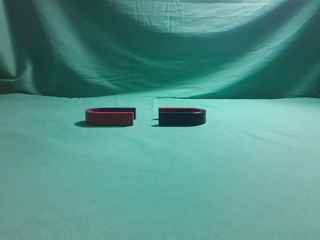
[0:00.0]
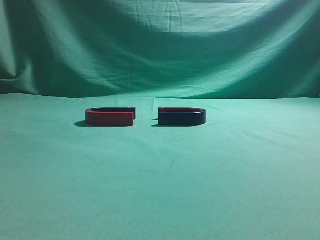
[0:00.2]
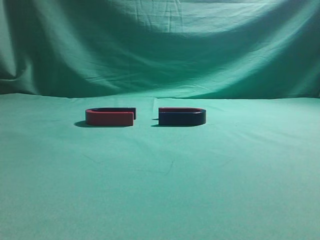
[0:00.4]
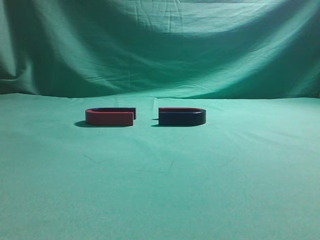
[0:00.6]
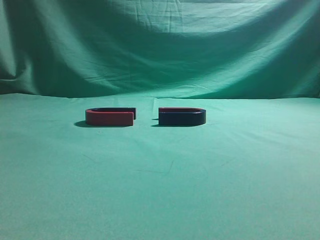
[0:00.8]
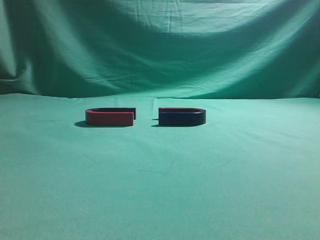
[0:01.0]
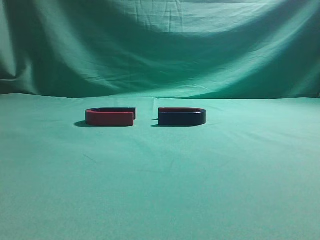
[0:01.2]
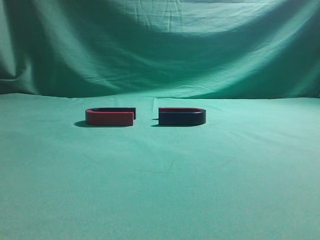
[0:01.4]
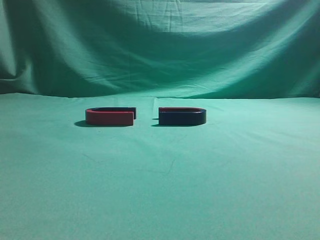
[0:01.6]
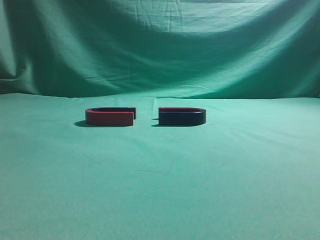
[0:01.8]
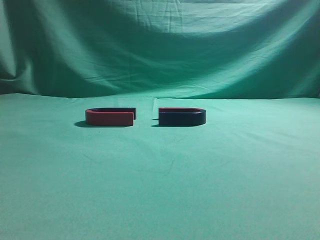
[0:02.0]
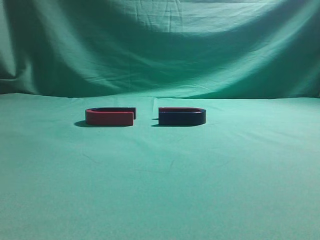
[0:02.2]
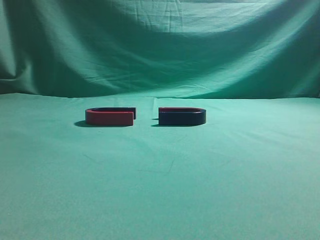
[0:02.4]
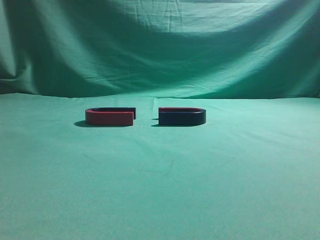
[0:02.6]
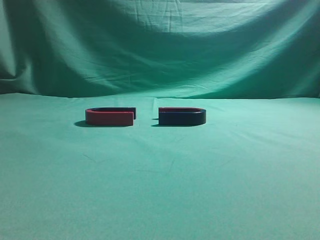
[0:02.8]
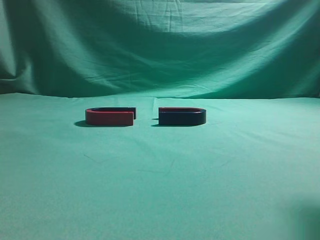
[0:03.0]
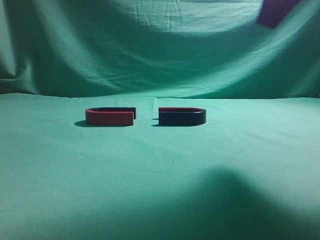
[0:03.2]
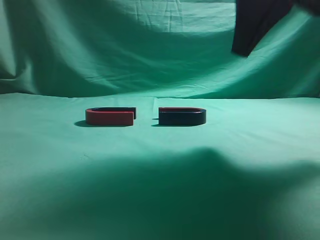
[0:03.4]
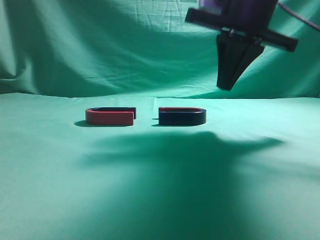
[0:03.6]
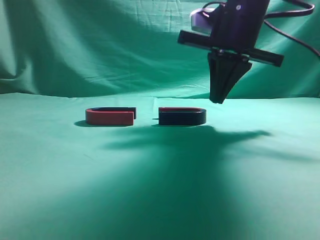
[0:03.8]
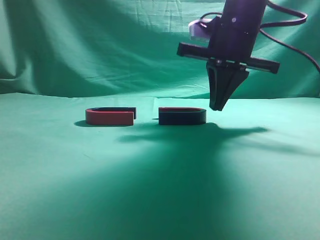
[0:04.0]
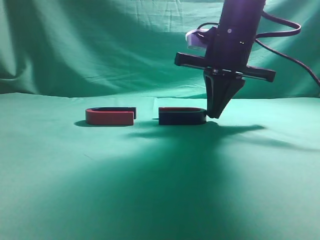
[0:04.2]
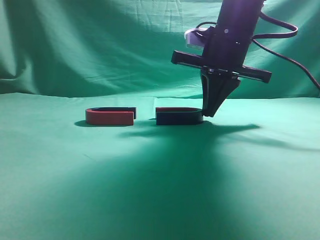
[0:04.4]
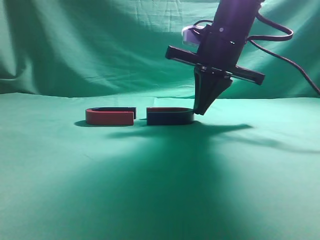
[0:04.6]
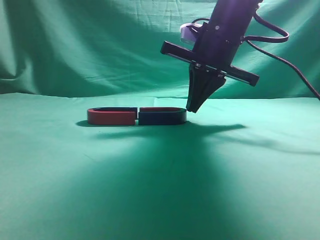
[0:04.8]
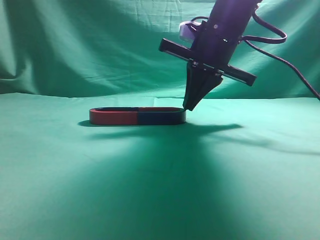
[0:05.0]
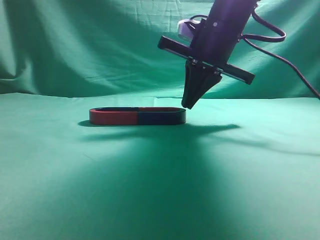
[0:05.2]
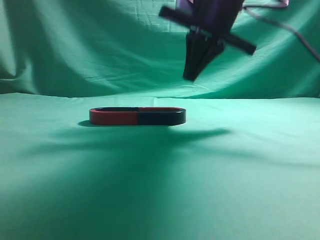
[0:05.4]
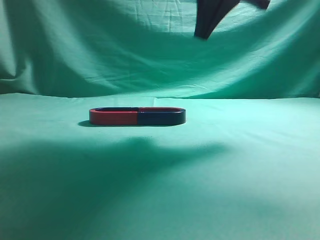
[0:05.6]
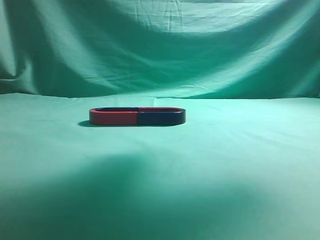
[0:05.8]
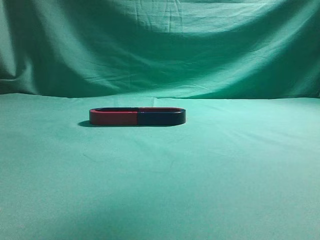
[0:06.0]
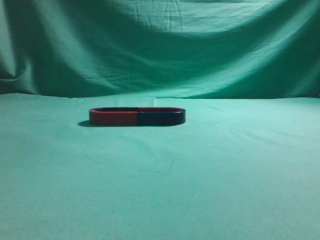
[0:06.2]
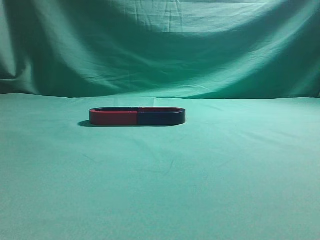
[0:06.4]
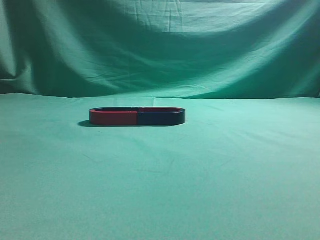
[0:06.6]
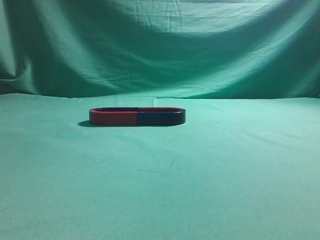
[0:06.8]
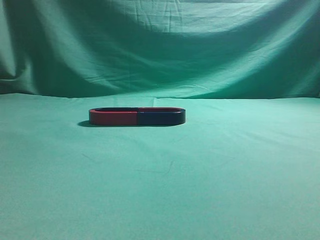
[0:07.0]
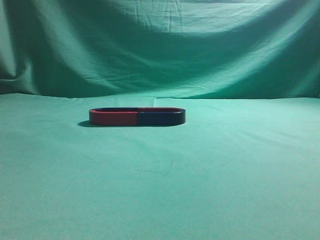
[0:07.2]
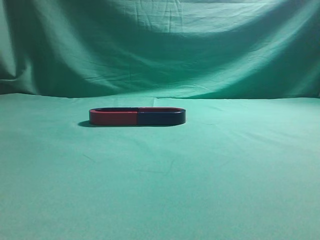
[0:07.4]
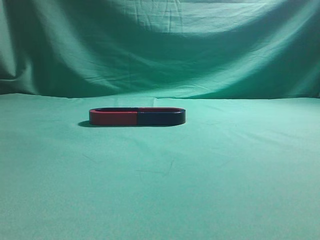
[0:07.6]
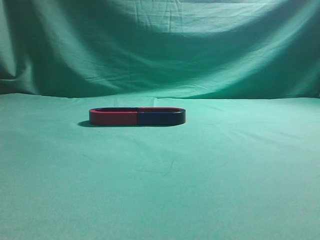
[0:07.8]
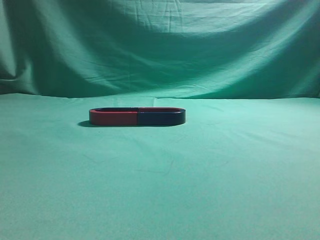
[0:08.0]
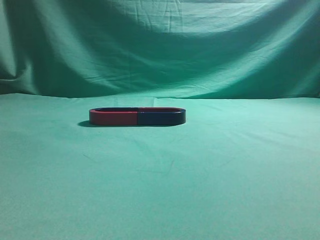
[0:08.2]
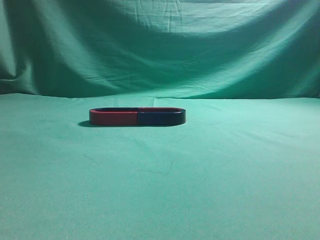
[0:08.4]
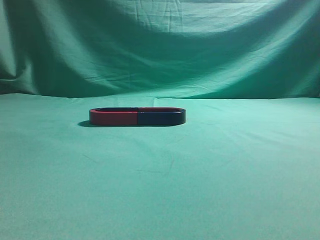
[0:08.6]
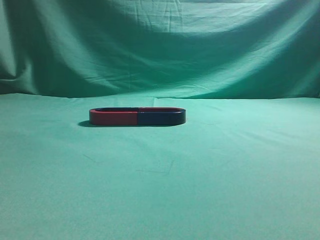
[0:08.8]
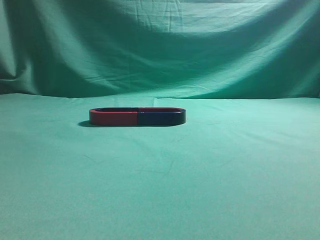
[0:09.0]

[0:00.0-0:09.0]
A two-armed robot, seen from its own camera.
Task of the whole recording: push the magnet on the table from its original position to another position.
Step, 0:00.0 to 0:05.2: Push the magnet on the right to connect the magnet on the left.
0:01.6 to 0:03.0: The right gripper travels forward, upward and to the left by some 20 cm.
0:03.0 to 0:04.4: The right gripper heads forward, downward and to the left, covering approximately 25 cm.
0:04.4 to 0:06.0: The right gripper is displaced upward and backward by about 25 cm.
0:06.0 to 0:07.6: The right gripper moves backward, downward and to the right, about 30 cm.
